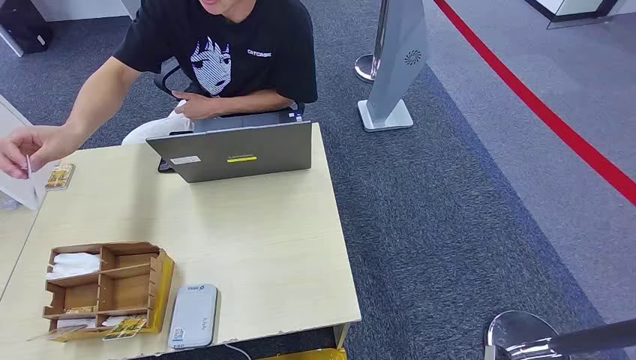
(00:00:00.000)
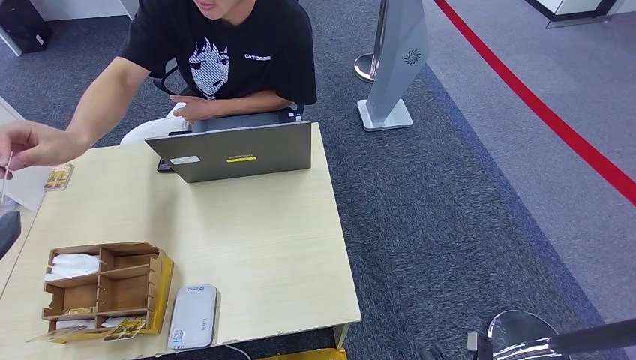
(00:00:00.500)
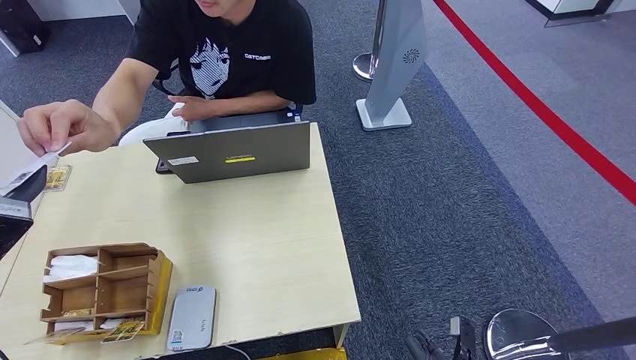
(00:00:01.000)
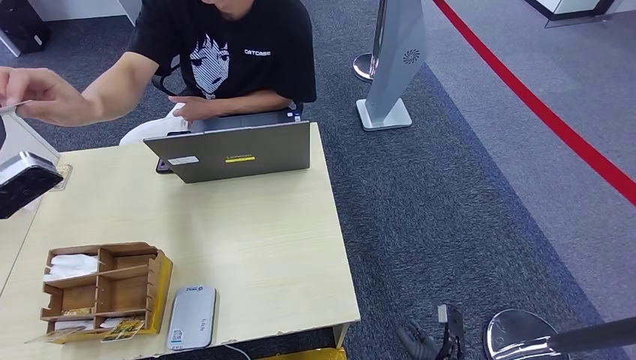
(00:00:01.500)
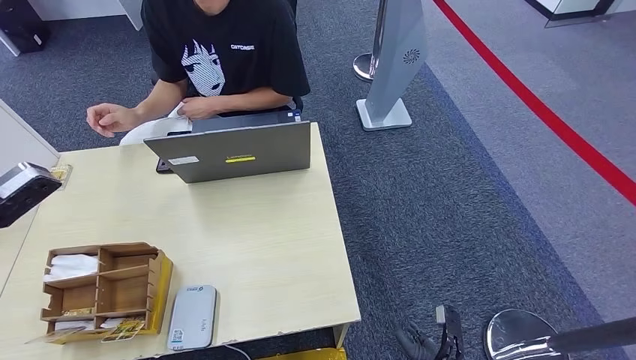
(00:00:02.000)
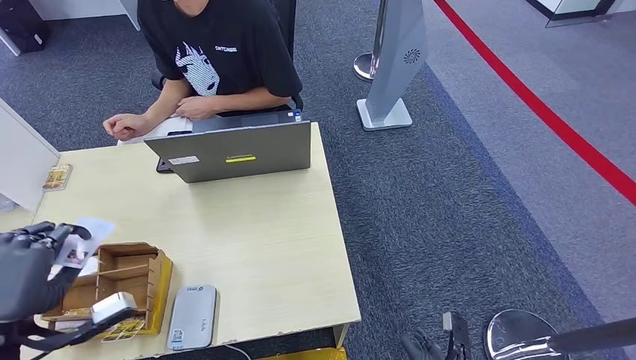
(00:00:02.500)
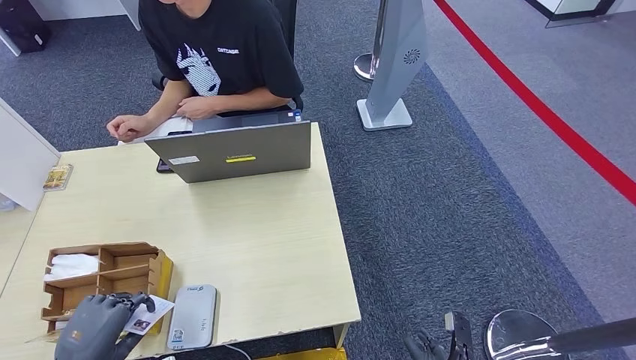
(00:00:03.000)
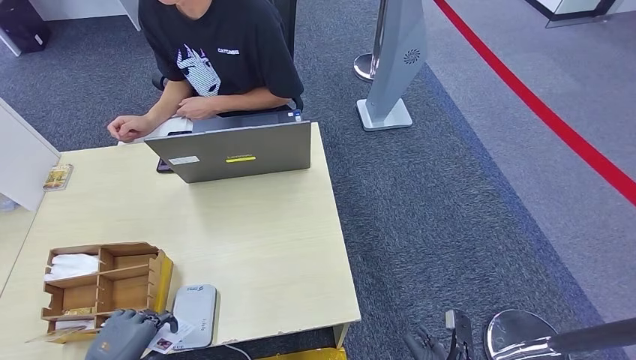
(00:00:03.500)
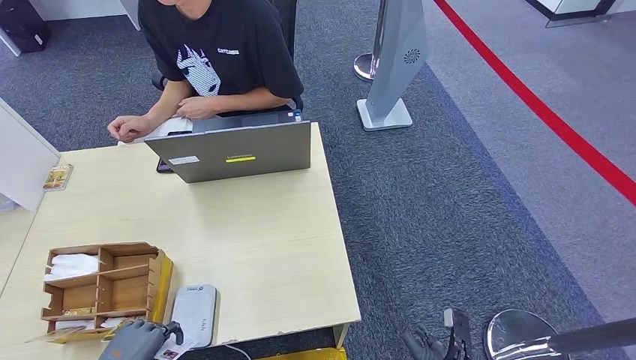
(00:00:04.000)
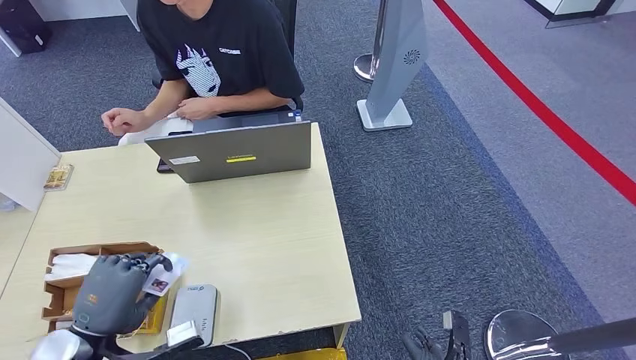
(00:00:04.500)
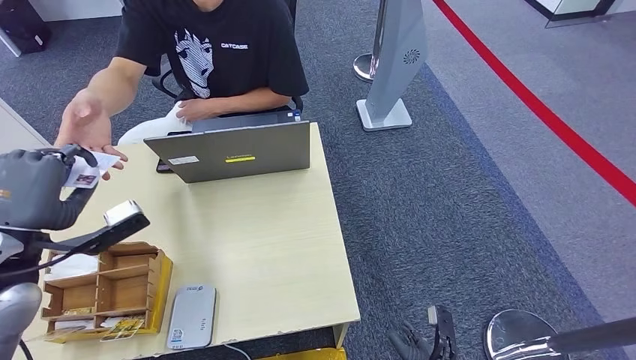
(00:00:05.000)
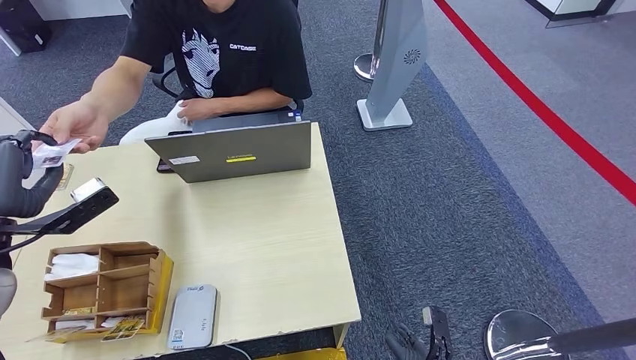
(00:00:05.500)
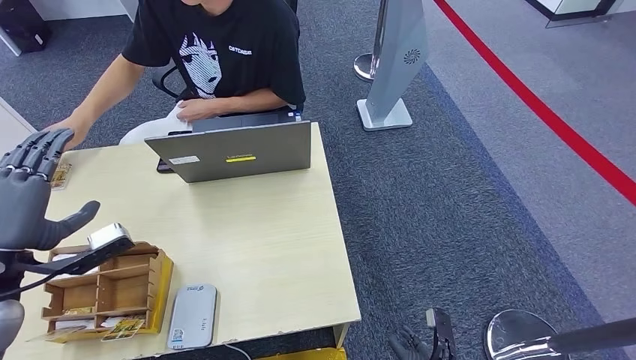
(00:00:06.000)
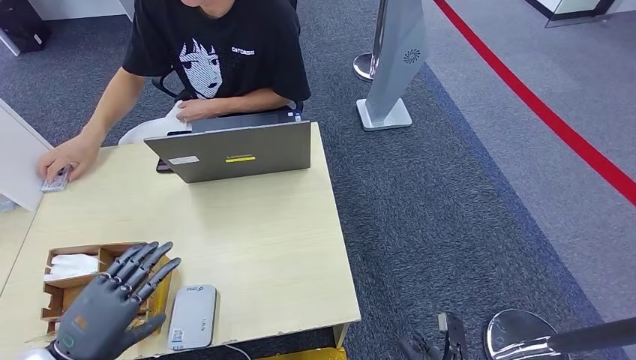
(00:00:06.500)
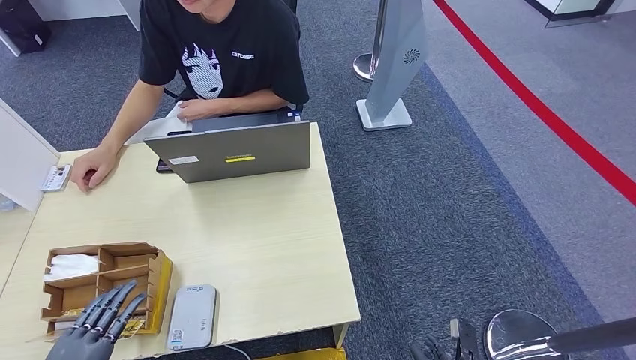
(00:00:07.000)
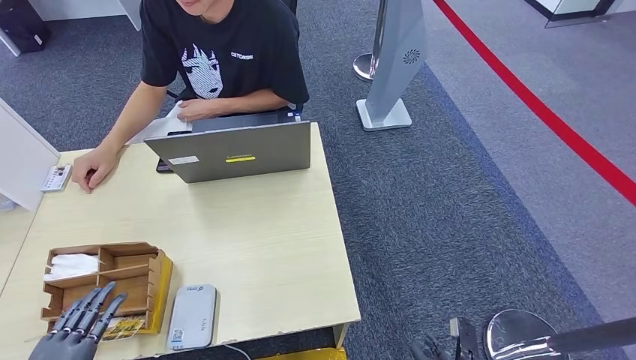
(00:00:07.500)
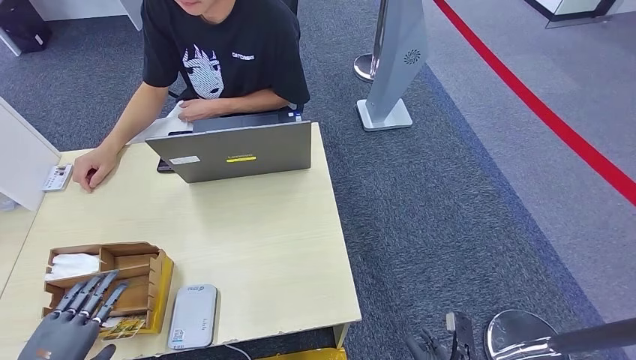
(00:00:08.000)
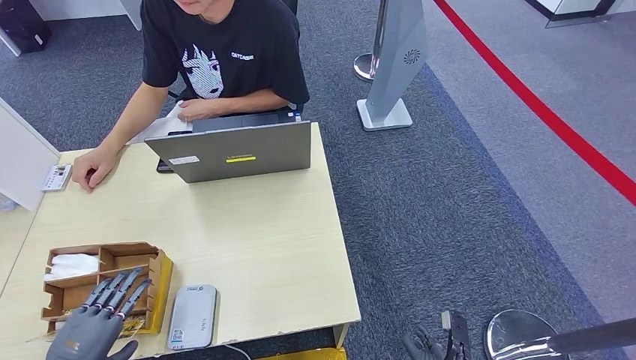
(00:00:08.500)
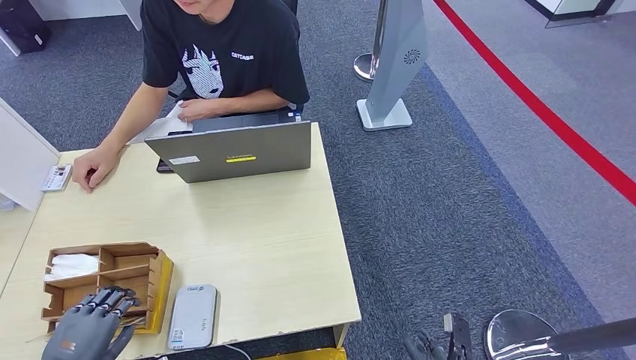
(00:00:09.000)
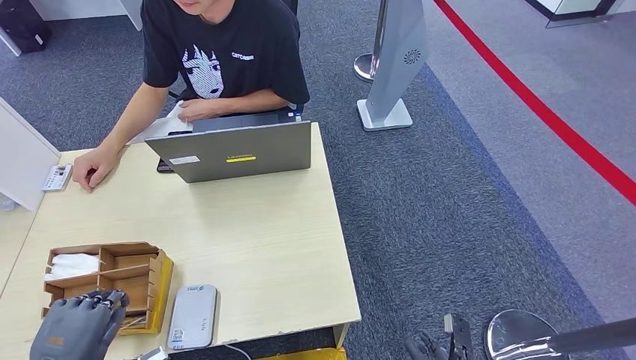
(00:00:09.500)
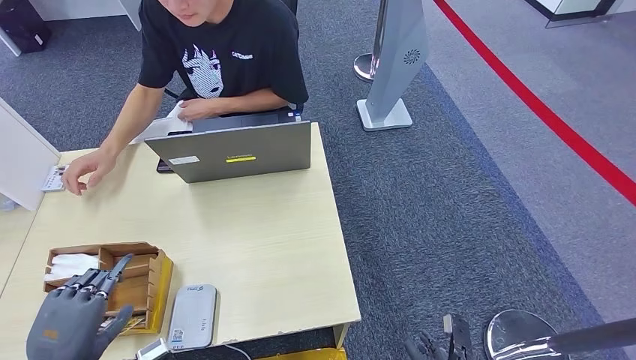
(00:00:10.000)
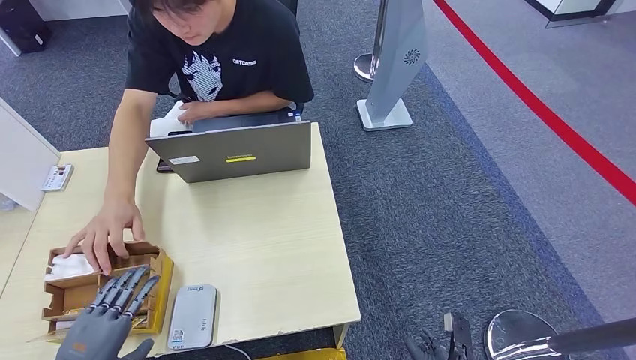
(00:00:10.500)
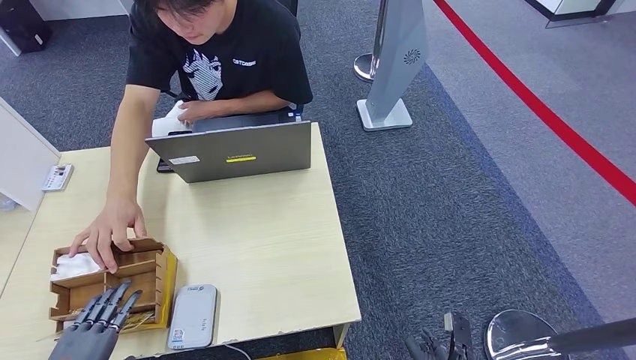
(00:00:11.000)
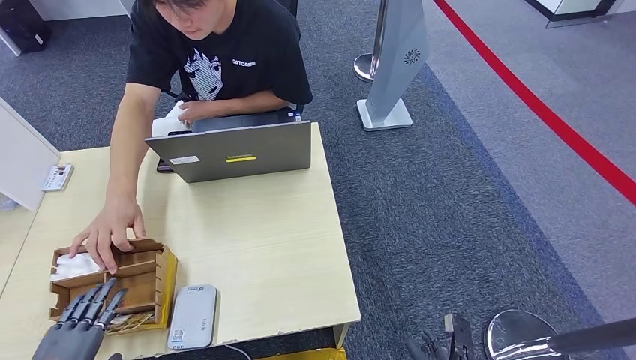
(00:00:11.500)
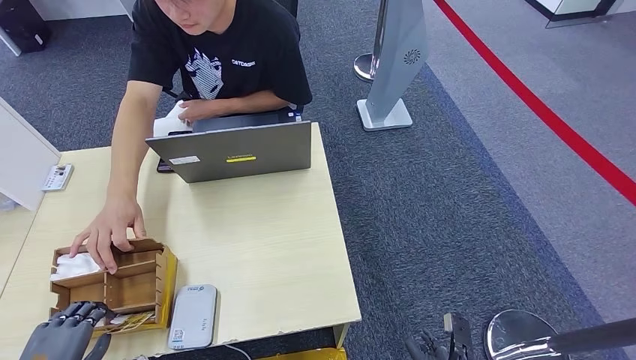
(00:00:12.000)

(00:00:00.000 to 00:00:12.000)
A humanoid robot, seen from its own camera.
Step, 00:00:00.000 - 00:00:02.500: Take the ID card from the person's hand.
Step, 00:00:03.000 - 00:00:04.000: Place the ID card on the card reader.
Step, 00:00:04.500 - 00:00:06.000: Hand the ID card to the person.
00:00:02.000 - 00:00:04.000: The left hand moves downward and backward, approximately 30 cm.
00:00:04.000 - 00:00:06.000: The left hand goes roughly 25 cm forward and upward.
00:00:06.000 - 00:00:08.000: The left hand heads backward and downward, covering some 20 cm.
00:00:08.000 - 00:00:10.000: The left hand shifts by about 5 cm.
00:00:10.000 - 00:00:12.000: The left hand moves roughly 5 cm.

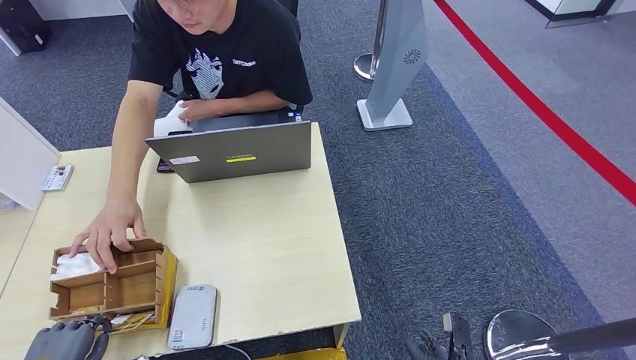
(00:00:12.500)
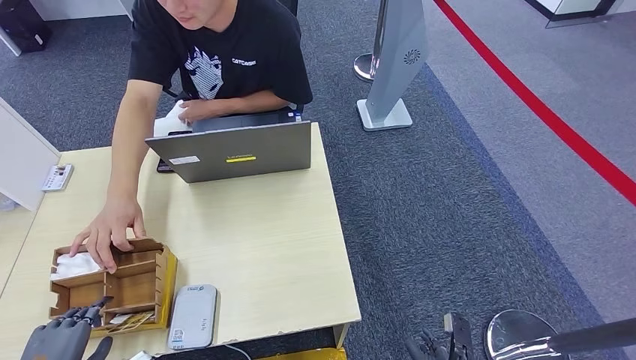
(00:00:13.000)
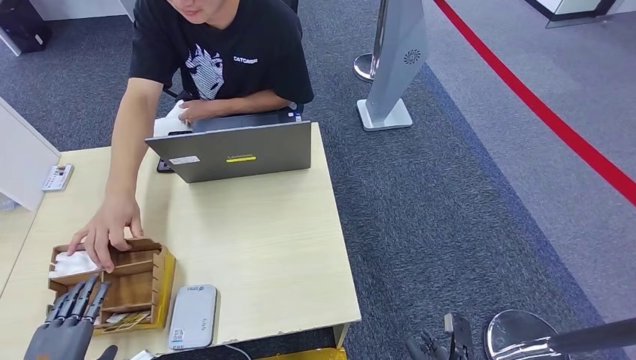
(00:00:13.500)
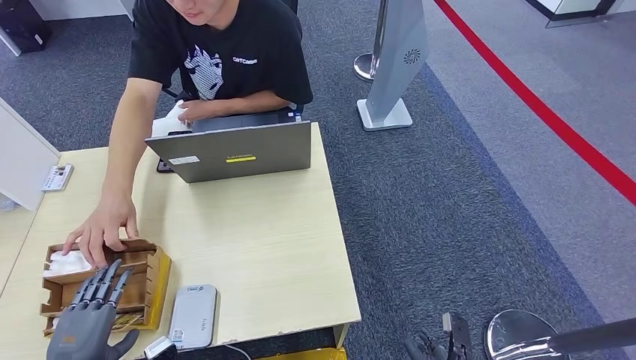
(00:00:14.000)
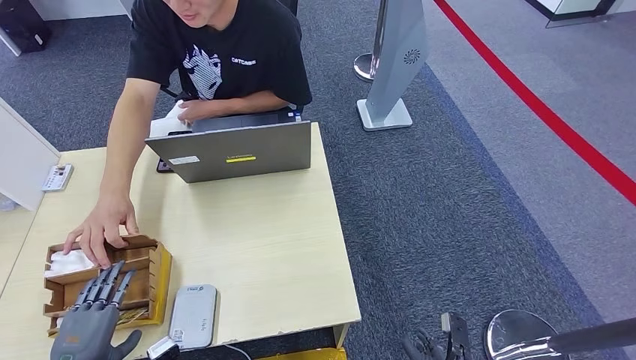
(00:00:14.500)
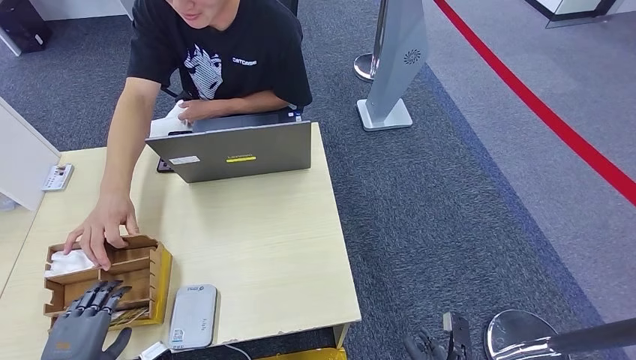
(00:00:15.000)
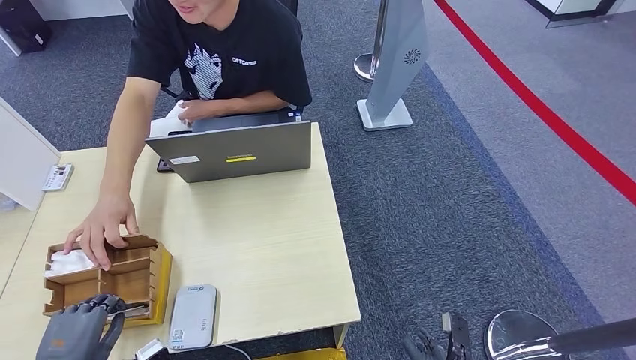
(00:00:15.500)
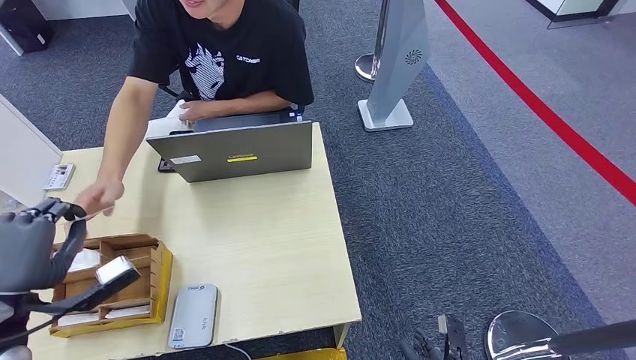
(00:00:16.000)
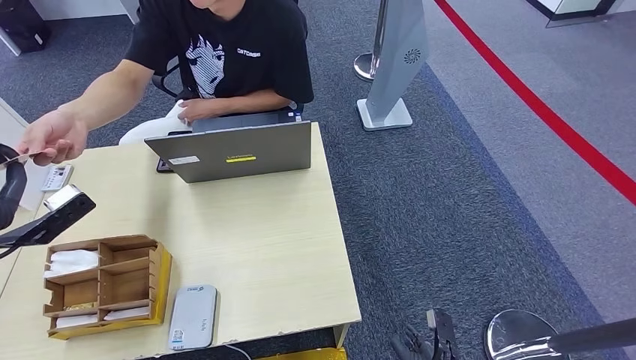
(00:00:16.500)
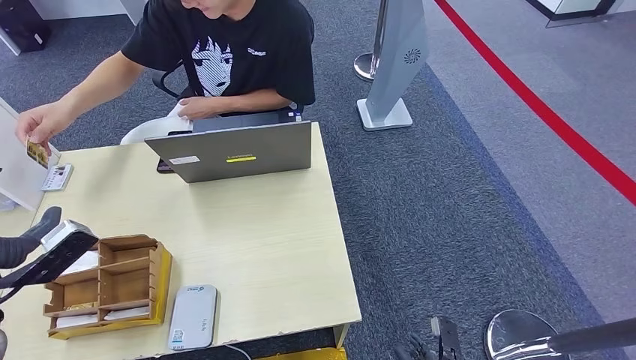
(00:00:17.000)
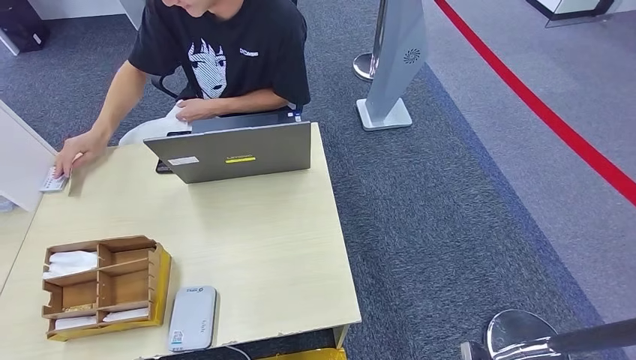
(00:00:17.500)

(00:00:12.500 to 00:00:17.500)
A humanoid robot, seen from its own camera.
Step, 00:00:15.000 - 00:00:16.000: Pick up the room key from the key card box.
Step, 00:00:16.500 - 00:00:17.500: Hand the room key to the person.
00:00:12.500 - 00:00:15.000: The hands make only small movements.
00:00:15.000 - 00:00:17.500: The left hand moves upward, some 15 cm; the right hand is displaced backward by roughly 5 cm.
